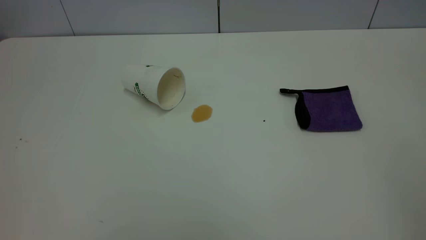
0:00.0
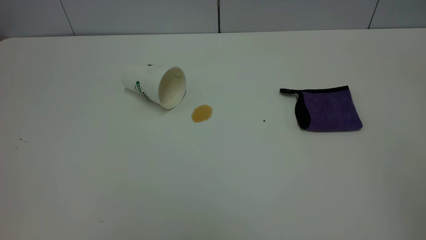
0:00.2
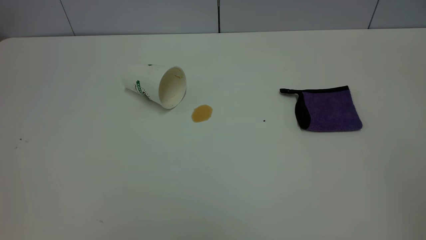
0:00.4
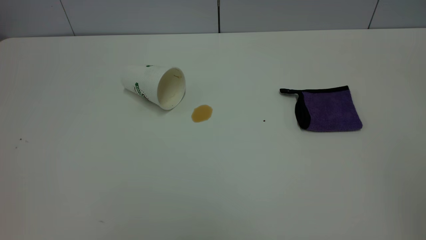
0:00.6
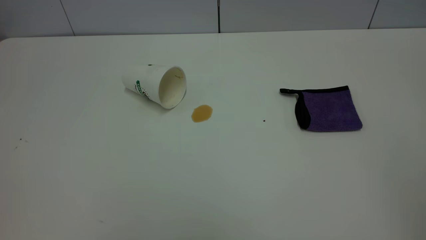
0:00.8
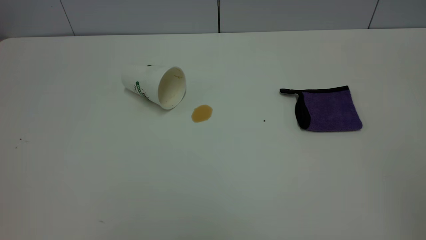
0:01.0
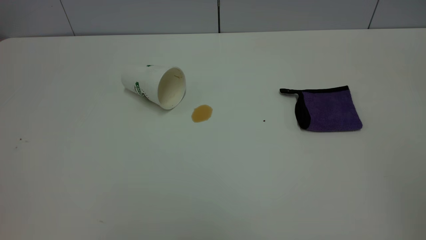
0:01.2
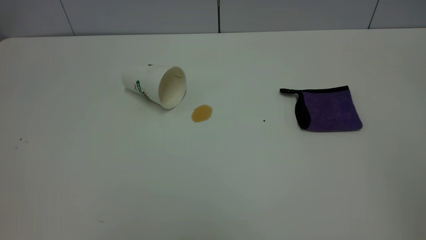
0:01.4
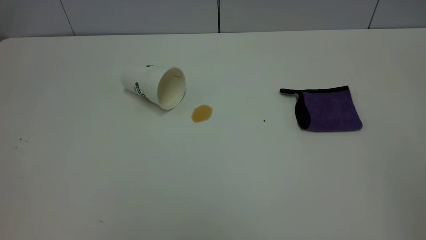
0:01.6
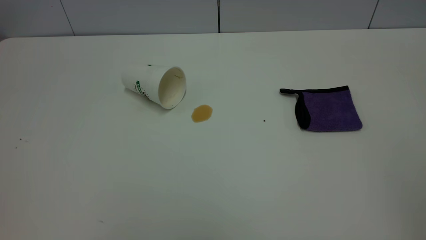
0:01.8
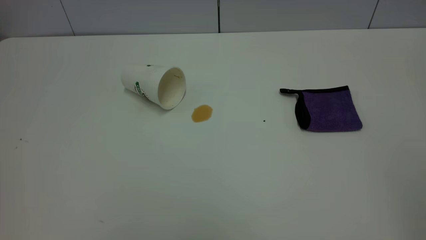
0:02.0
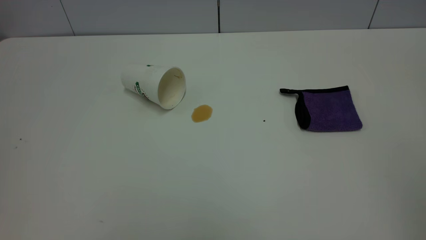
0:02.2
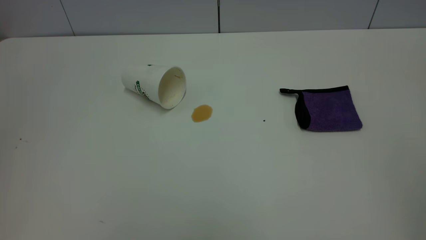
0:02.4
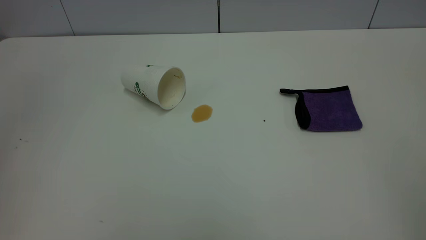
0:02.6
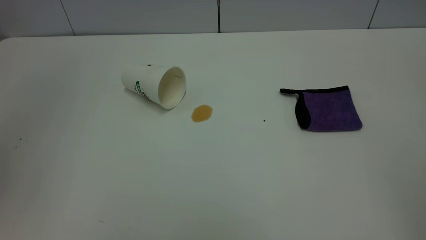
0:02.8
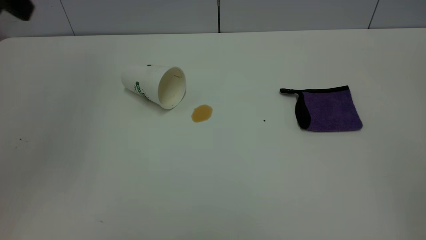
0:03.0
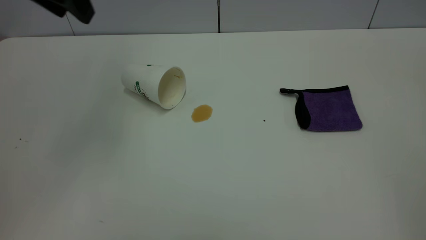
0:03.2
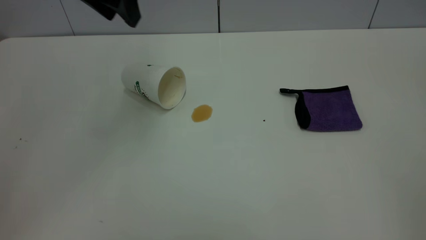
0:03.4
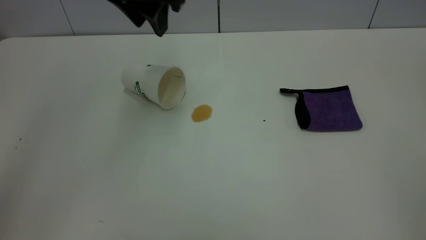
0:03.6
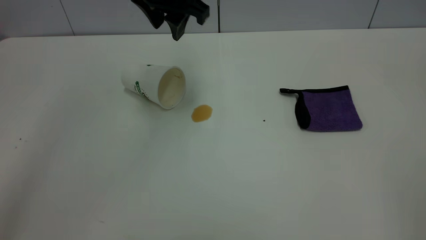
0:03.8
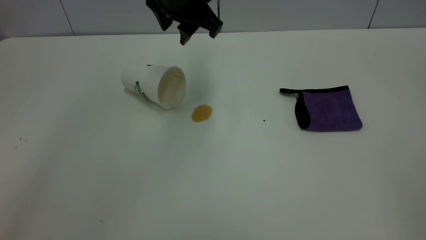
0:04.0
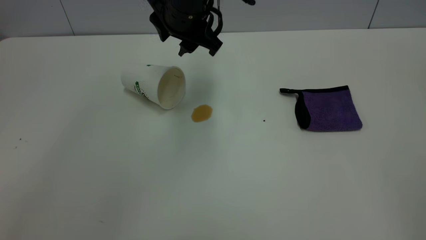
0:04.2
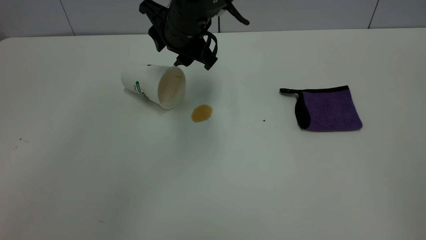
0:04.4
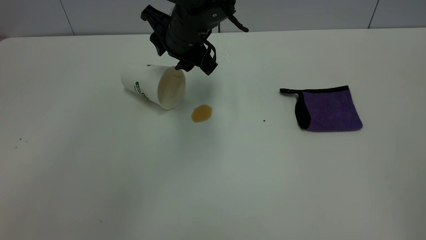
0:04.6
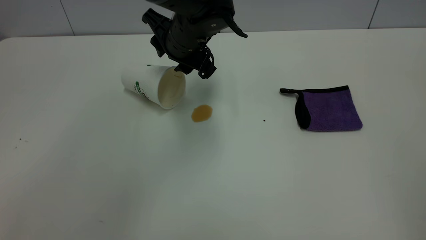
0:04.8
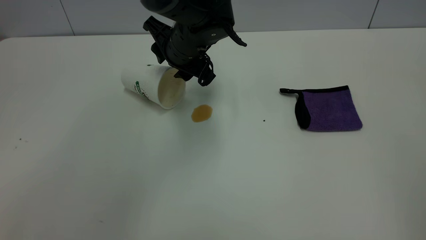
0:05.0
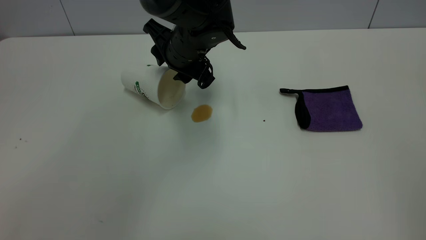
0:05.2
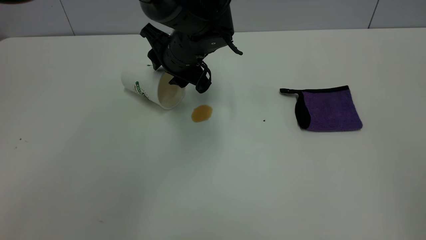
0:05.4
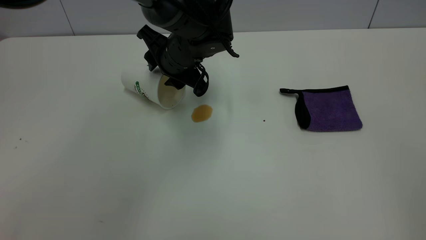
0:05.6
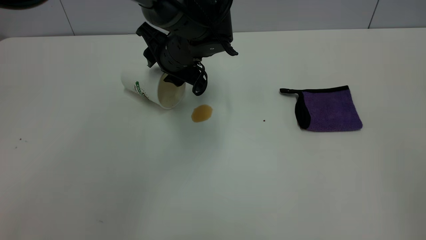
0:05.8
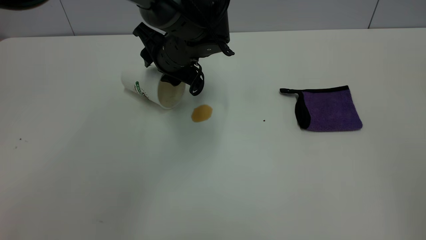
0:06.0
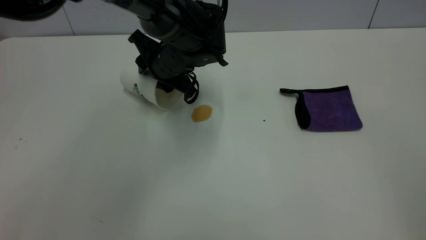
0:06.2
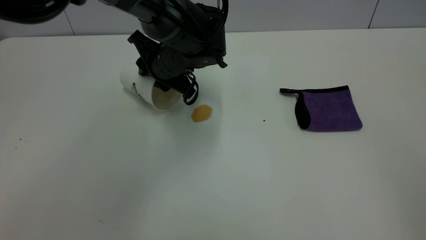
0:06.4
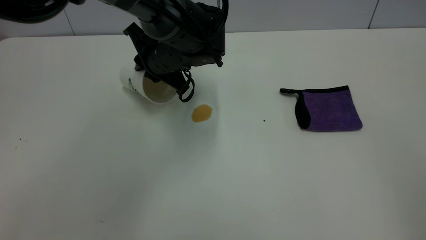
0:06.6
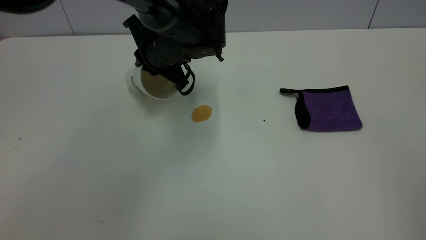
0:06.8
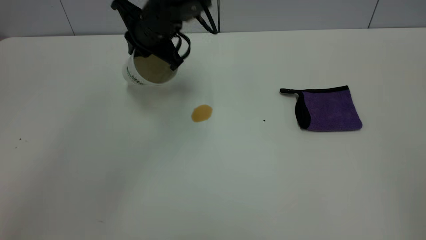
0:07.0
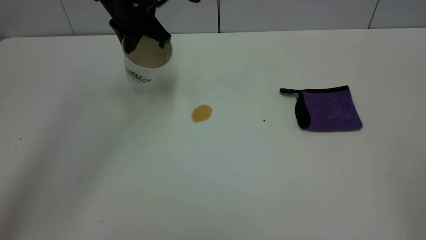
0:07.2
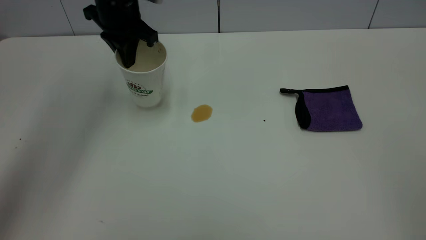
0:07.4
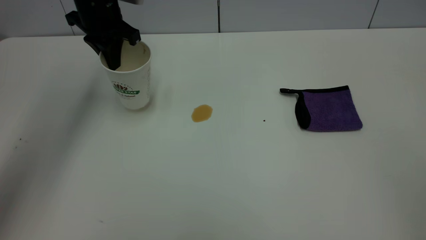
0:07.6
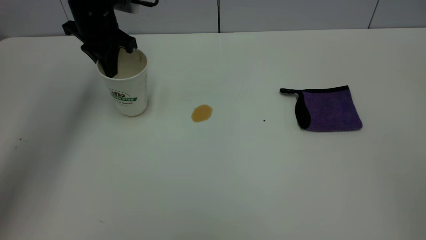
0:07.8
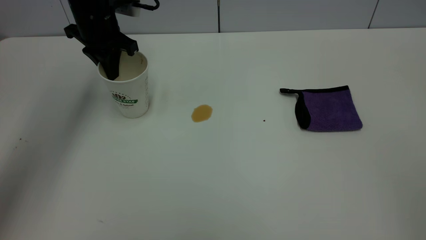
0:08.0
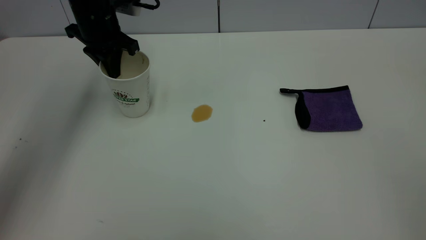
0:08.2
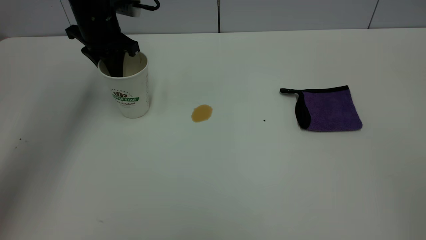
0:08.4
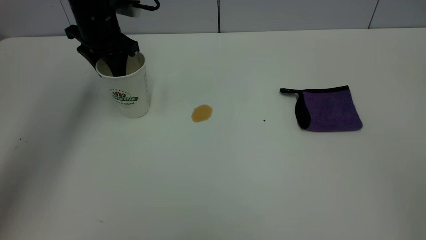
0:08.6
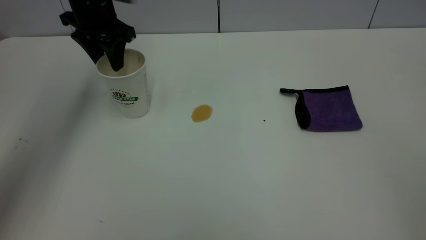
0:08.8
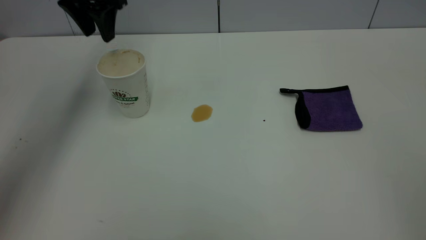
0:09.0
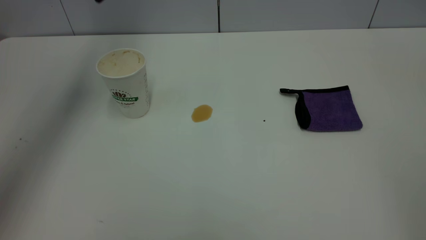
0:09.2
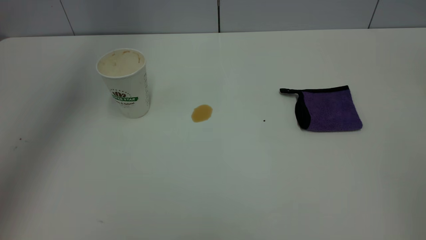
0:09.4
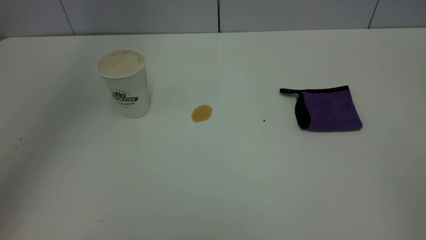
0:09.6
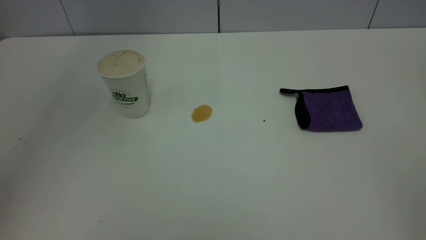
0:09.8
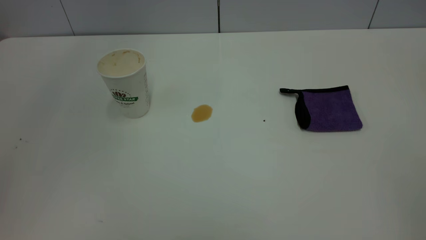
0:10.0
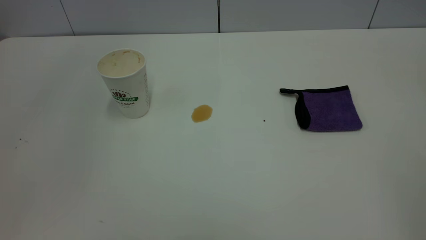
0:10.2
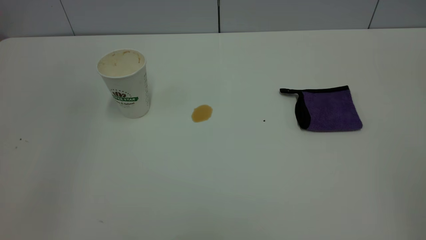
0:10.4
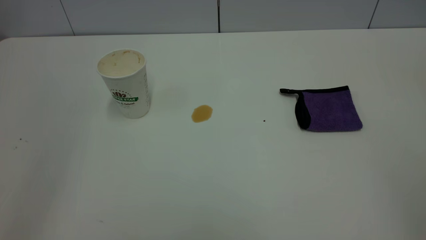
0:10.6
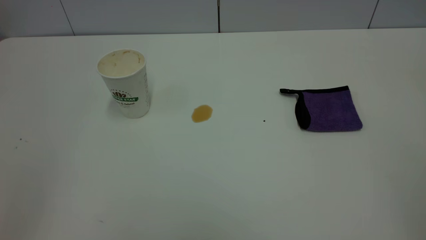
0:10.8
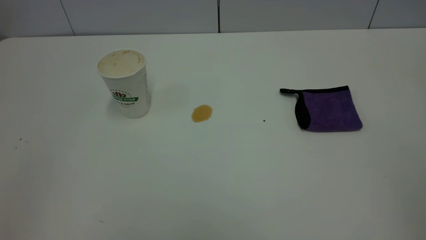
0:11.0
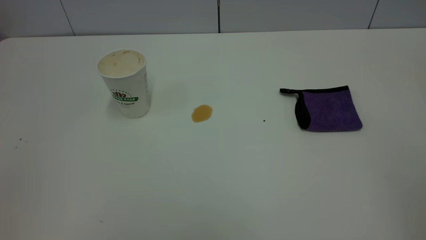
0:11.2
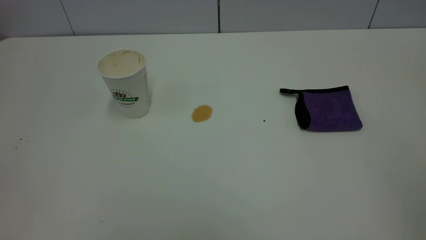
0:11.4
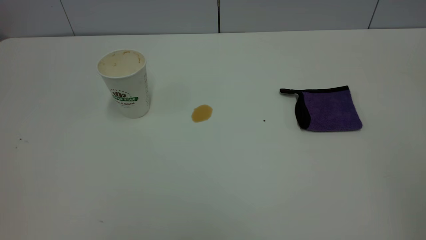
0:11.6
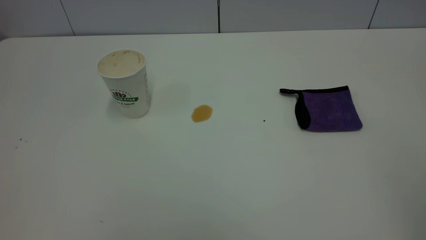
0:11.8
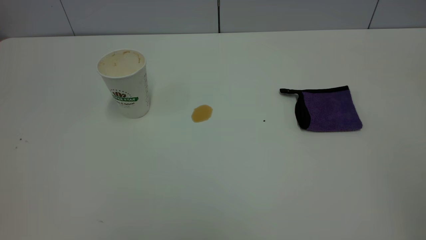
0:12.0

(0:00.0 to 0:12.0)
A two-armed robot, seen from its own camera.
Task of the whole recording: the left gripper pick up the fallen cup and place it upright, the right gripper grasp the purple rag and wipe the tea stain on the table, the right gripper put the purple rag back in its original position.
Step, 0:00.0 - 0:08.8: Stand the paper cup upright.
0:00.0 - 0:01.6: The two grippers keep their place.
0:03.0 - 0:04.4: The left gripper goes some 30 cm to the right, downward and forward.
0:04.4 - 0:06.0: The left gripper moves downward, about 5 cm.
0:06.0 - 0:07.6: The left gripper goes roughly 15 cm to the left and upward, and closes up.
0:07.6 - 0:09.0: The left gripper travels upward by some 10 cm, and opens up.
0:09.0 - 0:10.4: The left gripper shifts about 30 cm backward.

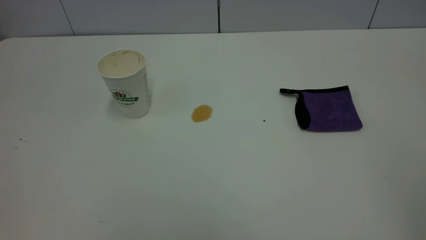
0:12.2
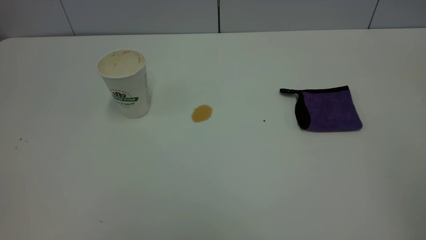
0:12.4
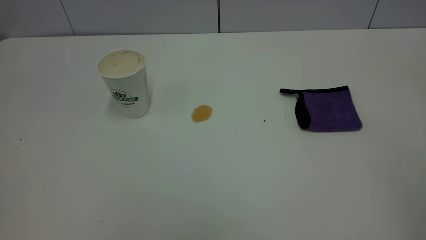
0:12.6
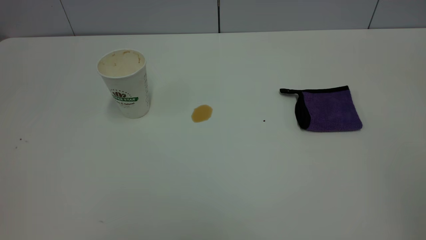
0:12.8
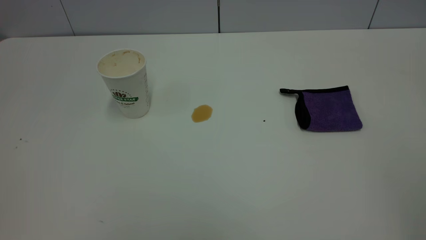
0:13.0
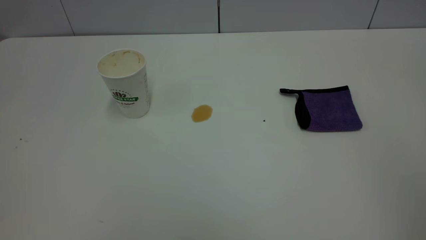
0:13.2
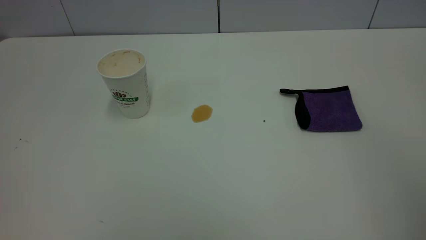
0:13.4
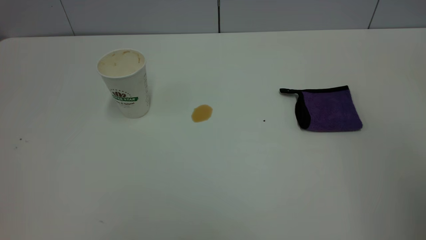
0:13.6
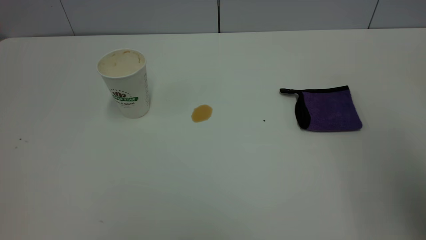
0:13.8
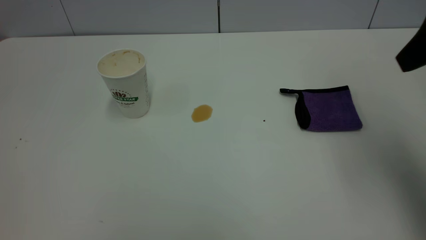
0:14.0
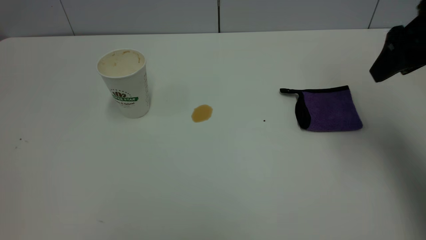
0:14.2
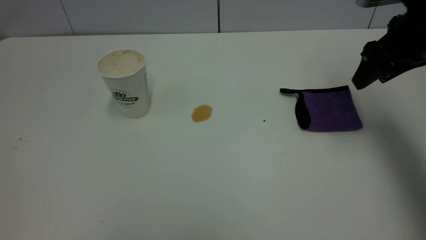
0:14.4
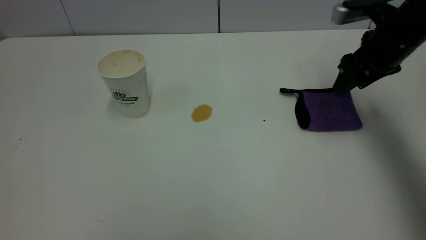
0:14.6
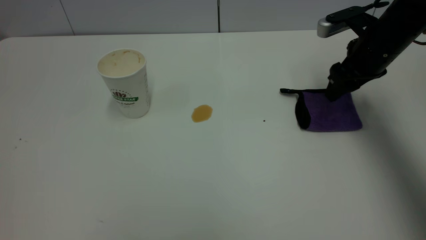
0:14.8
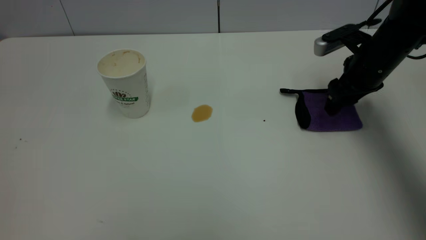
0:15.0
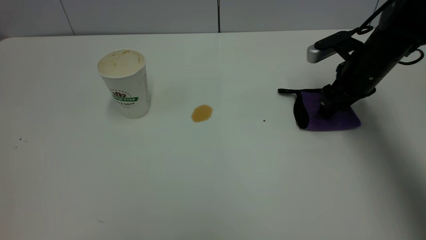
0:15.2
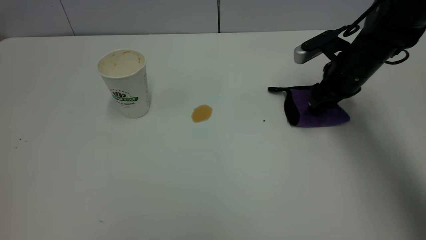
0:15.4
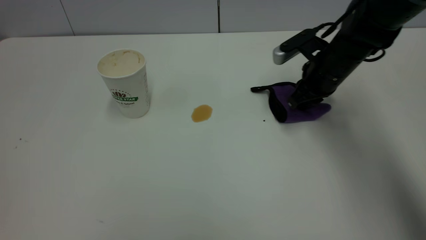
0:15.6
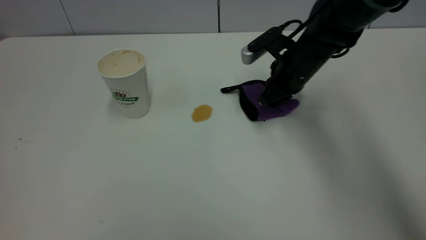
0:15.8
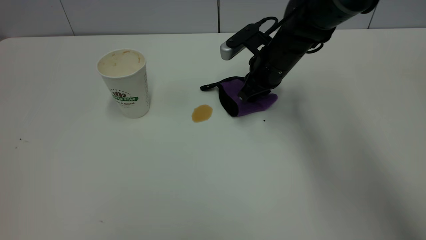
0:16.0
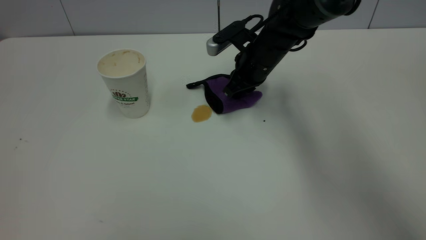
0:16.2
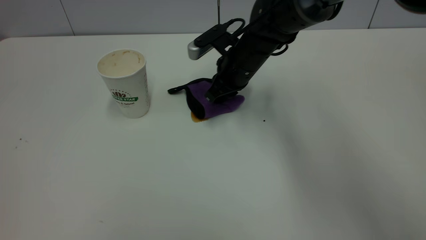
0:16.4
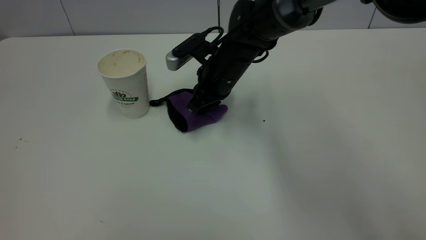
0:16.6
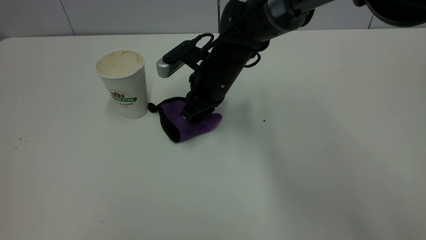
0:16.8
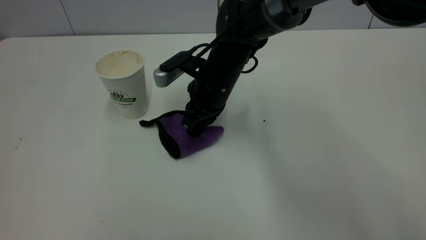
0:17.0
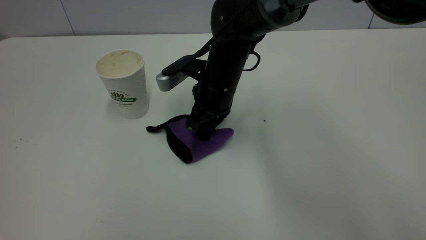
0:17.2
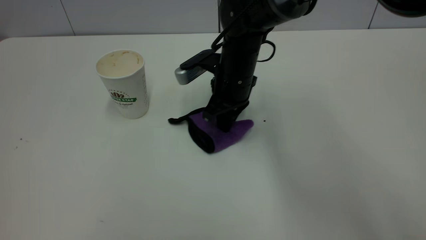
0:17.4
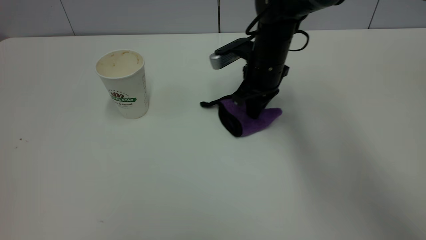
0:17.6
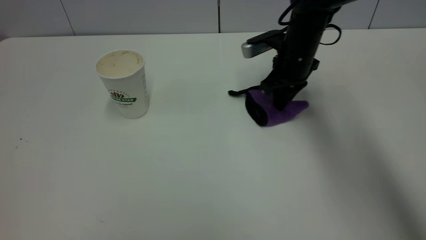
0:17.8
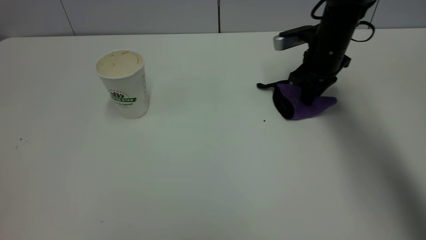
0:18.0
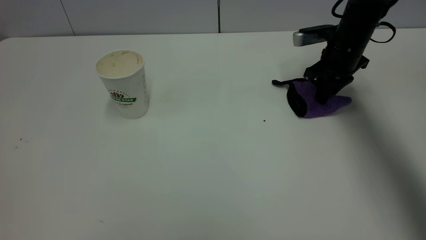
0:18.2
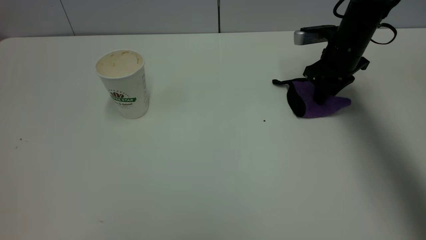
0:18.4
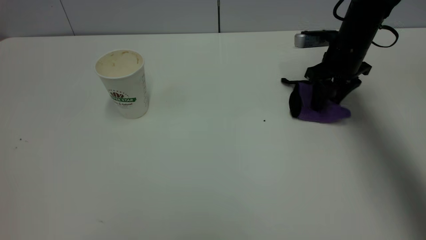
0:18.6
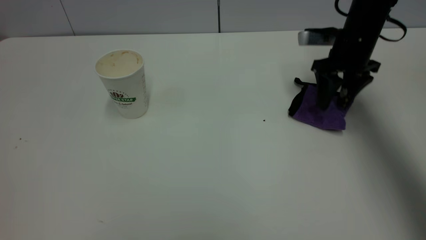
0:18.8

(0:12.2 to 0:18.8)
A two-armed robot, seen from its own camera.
Task of the whole recording: the left gripper pick up the fallen cup and place it upright, the right gripper grasp the purple rag and wipe the tea stain on the table, the right gripper put the purple rag back in its original position.
0:12.2 - 0:13.8: The right gripper heads forward, covering about 20 cm, and opens.
0:13.8 - 0:15.4: The right gripper heads downward and forward, covering roughly 30 cm.
0:15.4 - 0:17.2: The right gripper shifts about 20 cm to the left, and closes.
0:17.2 - 0:18.8: The right gripper heads to the right, covering some 20 cm, and opens its fingers.
